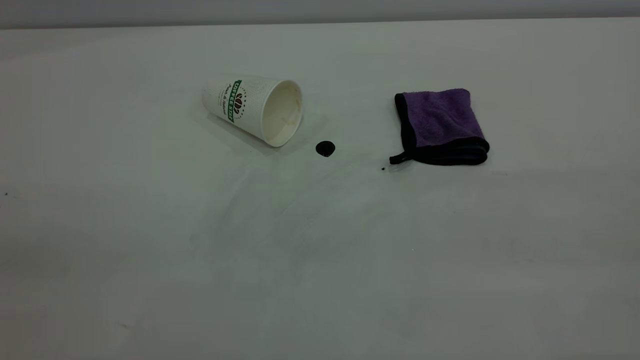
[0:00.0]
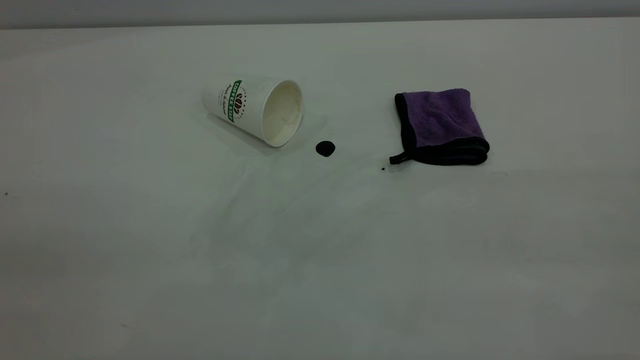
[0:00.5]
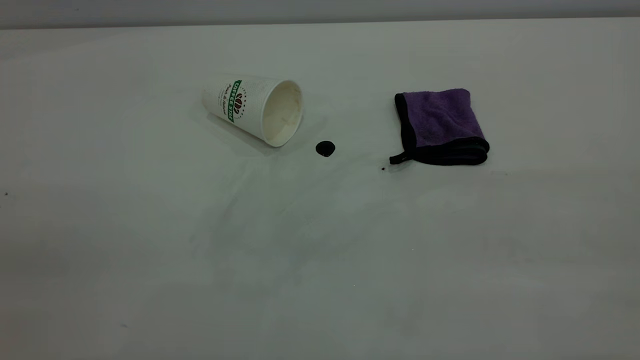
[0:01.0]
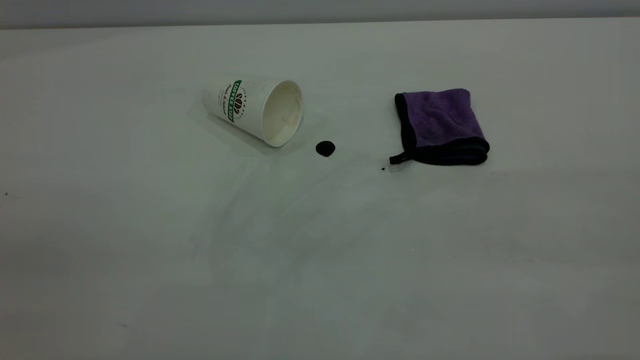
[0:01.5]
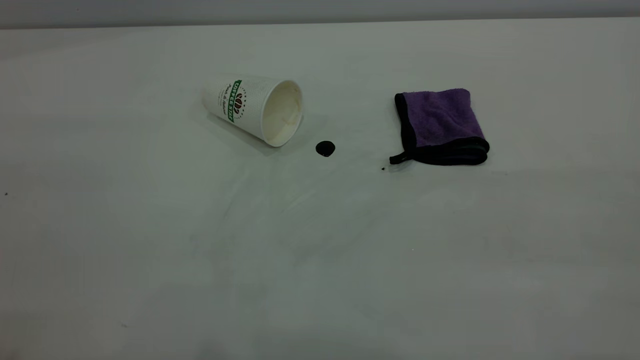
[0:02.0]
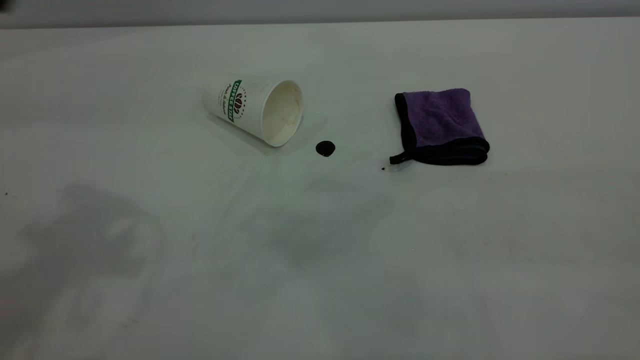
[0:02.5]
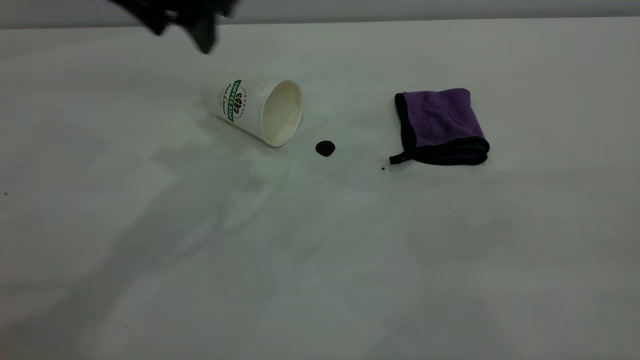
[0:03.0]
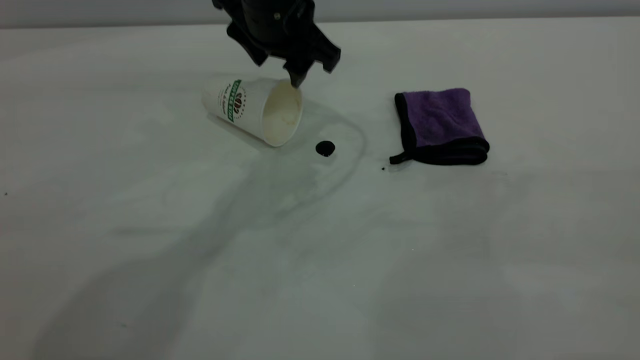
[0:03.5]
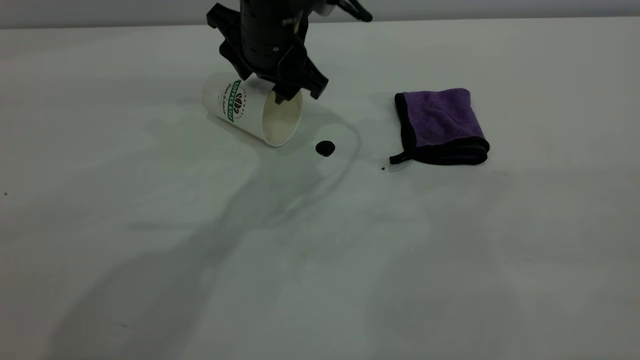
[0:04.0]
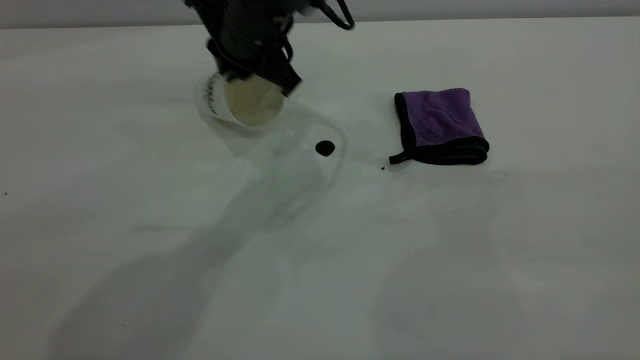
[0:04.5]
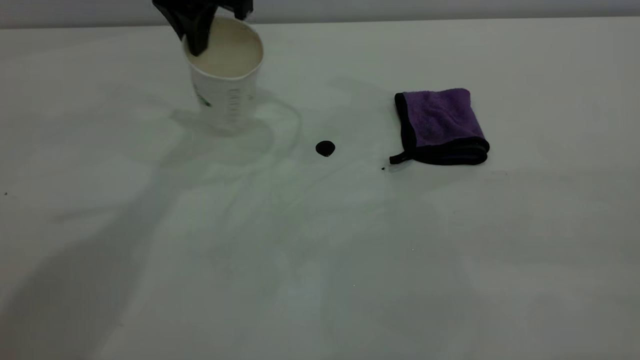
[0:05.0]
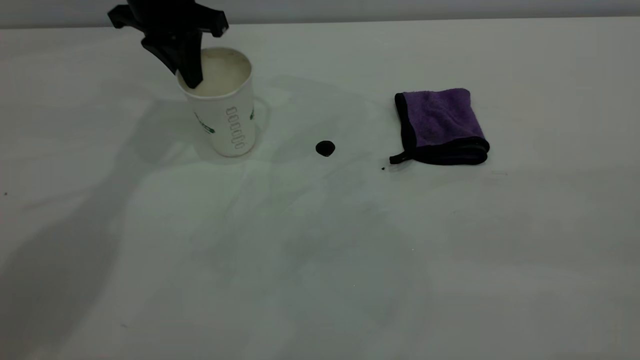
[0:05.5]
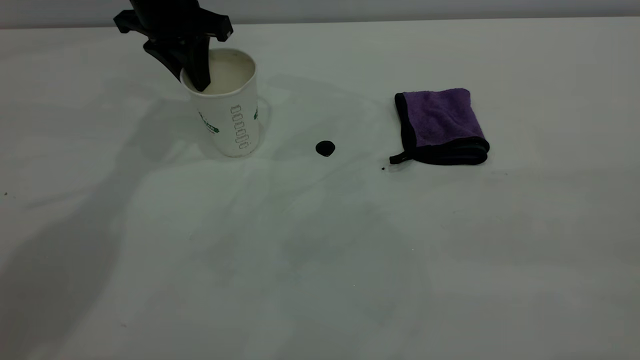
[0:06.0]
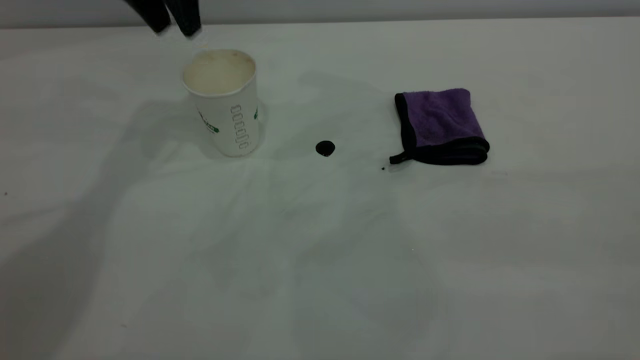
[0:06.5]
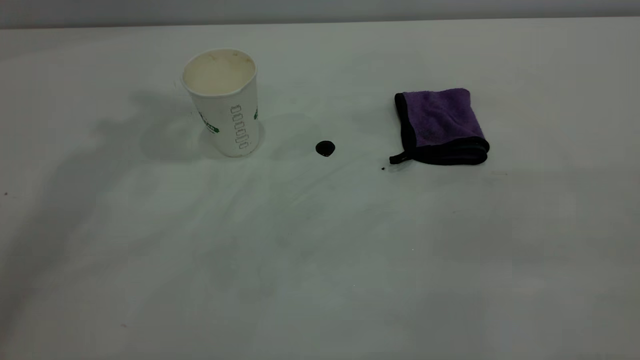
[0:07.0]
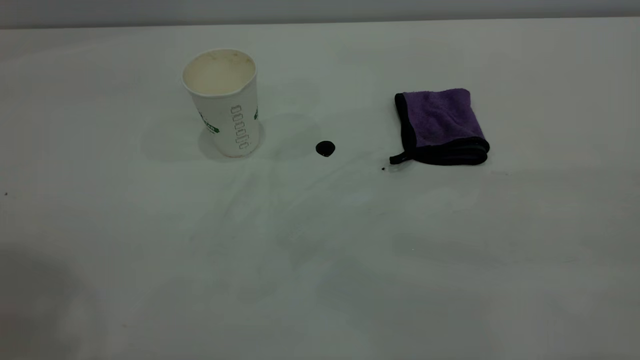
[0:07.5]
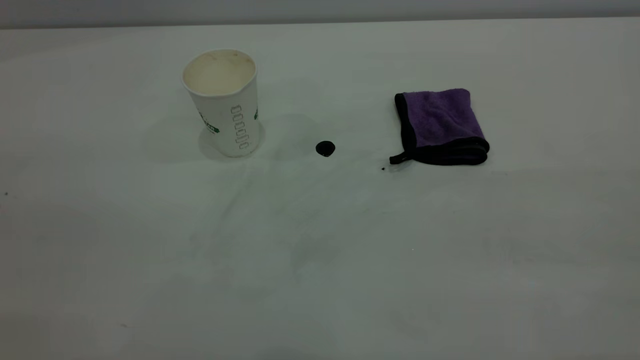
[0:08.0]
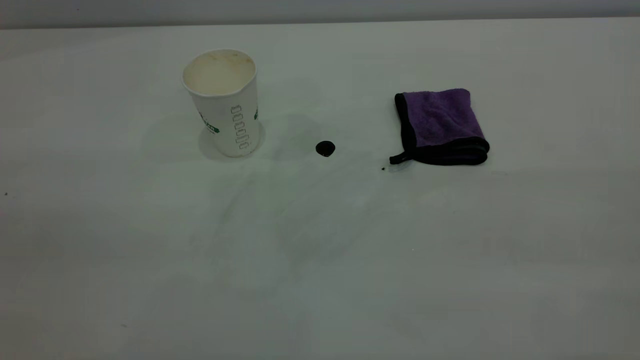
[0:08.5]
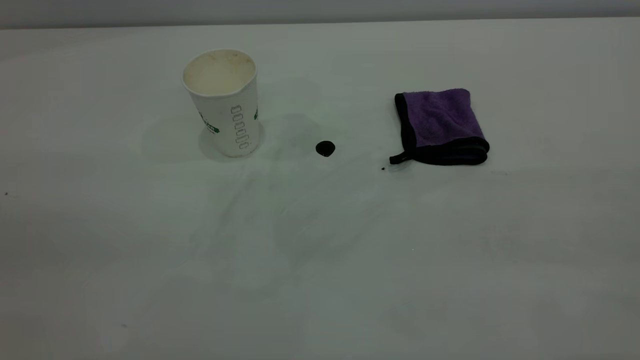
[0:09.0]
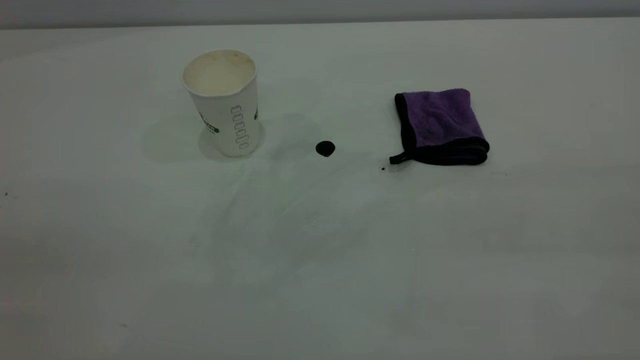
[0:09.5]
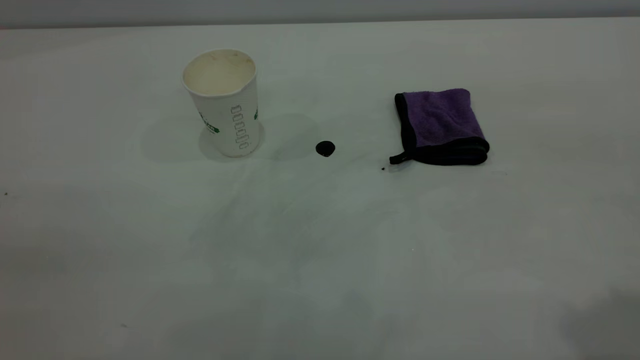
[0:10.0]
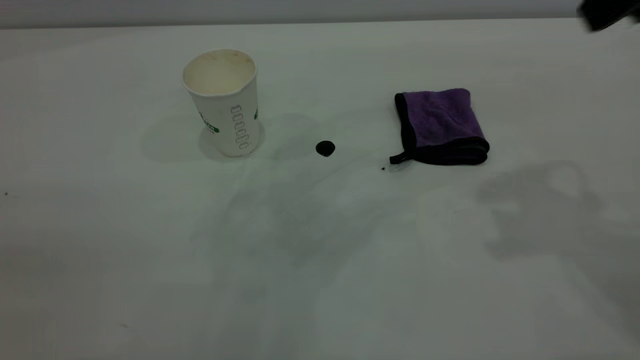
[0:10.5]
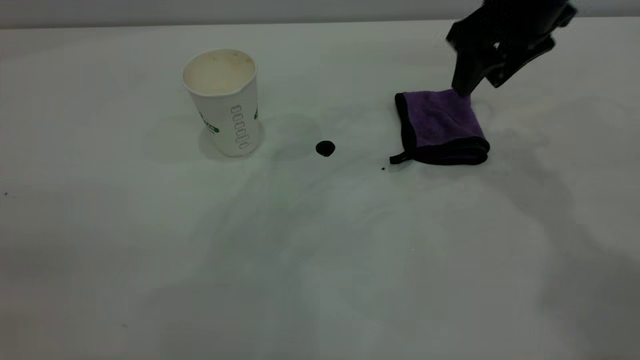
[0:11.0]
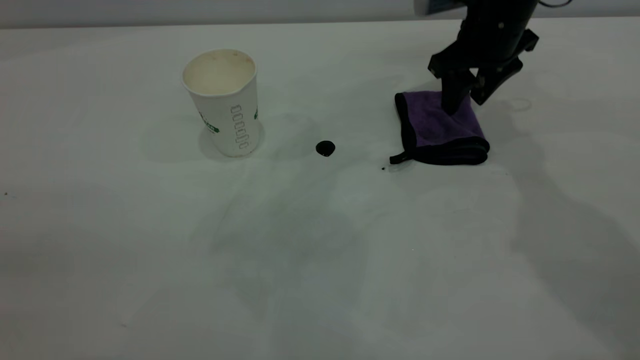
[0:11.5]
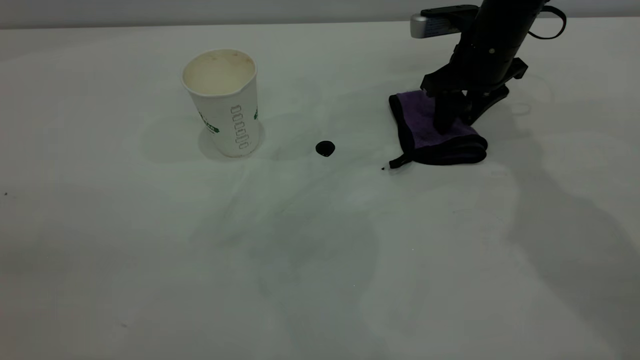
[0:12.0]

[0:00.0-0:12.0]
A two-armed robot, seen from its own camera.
Task of the whole recording: the left gripper pick up the fallen cup and place it upright, the right gripper grasp the purple rag and wipe the coffee stain on the table, the right gripper put the purple rag back in its original position.
Step, 0:00.0 to 0:06.0: Stand the paper cup upright.
0:02.0 to 0:04.0: The left gripper travels forward, to the right and downward by approximately 50 cm.
0:04.0 to 0:06.0: The left gripper is displaced to the left and forward by some 15 cm, and closes up.
0:06.0 to 0:08.0: The left gripper is displaced backward and upward by roughly 40 cm, and opens.
0:10.0 to 0:12.0: The right gripper heads forward and downward, covering about 50 cm.

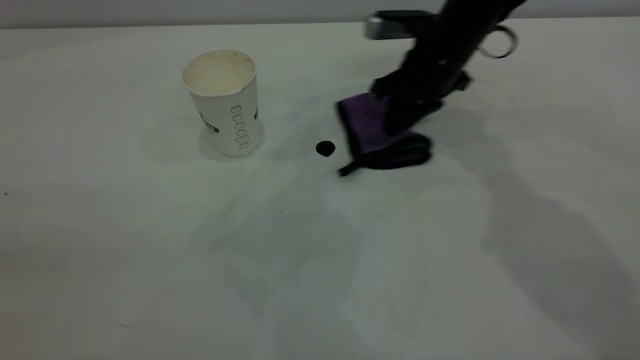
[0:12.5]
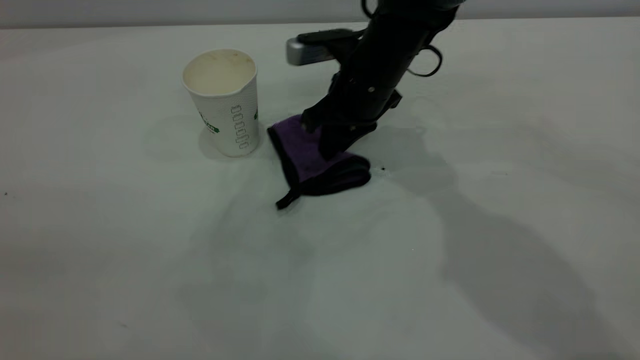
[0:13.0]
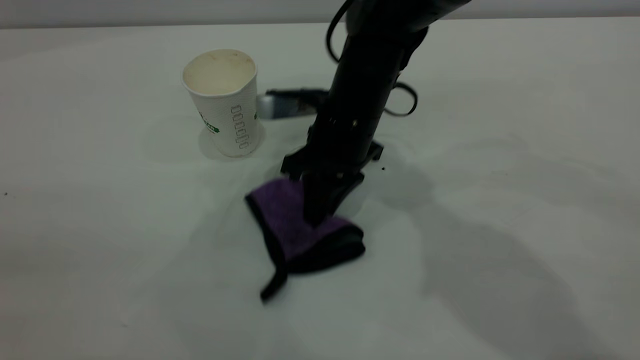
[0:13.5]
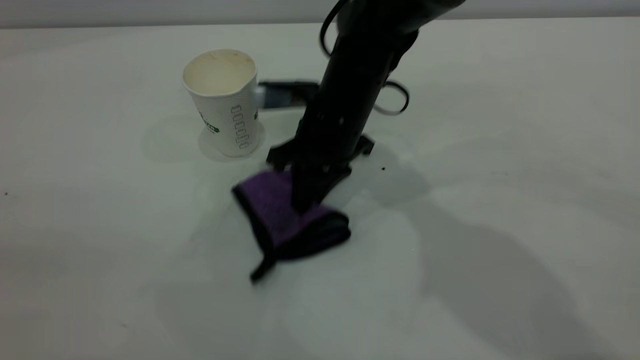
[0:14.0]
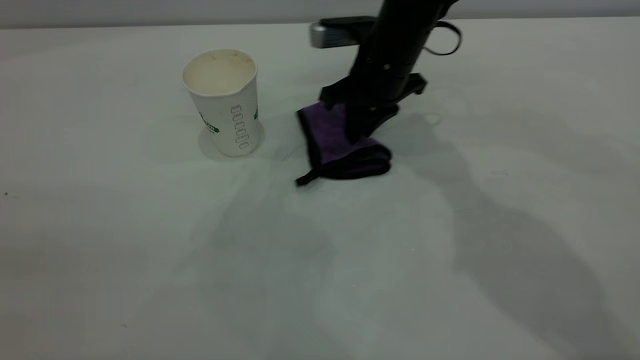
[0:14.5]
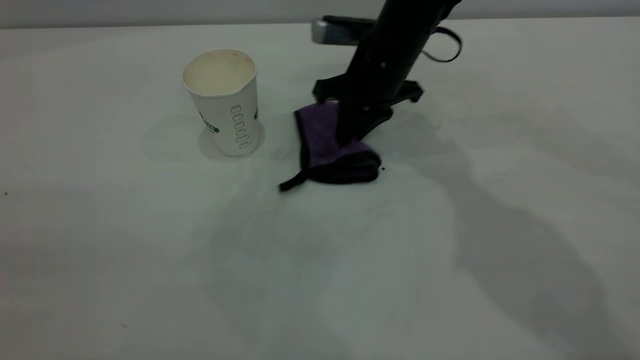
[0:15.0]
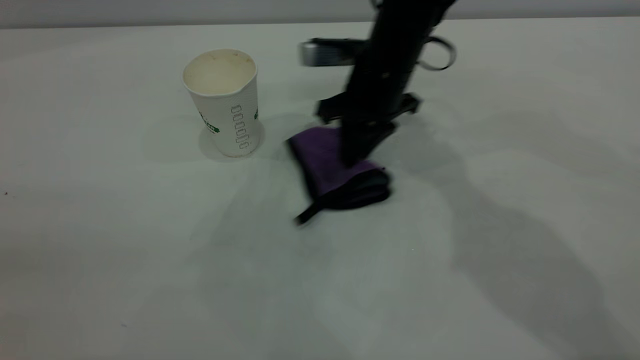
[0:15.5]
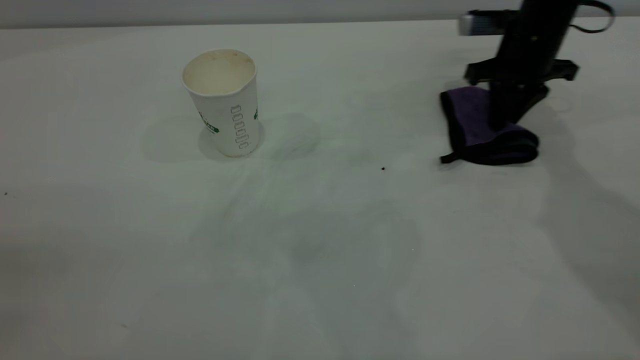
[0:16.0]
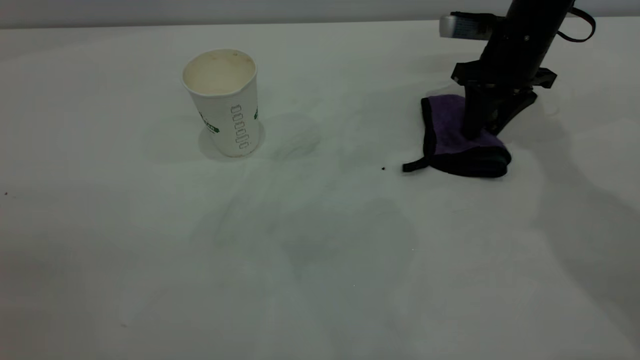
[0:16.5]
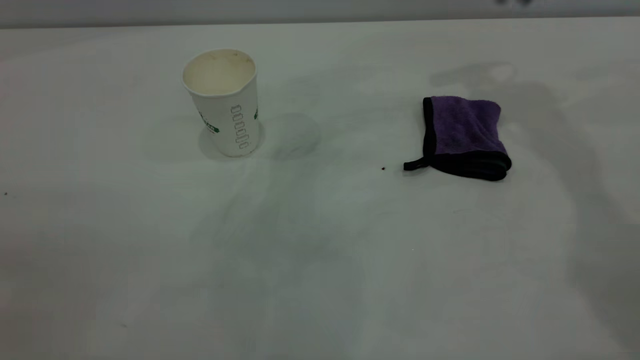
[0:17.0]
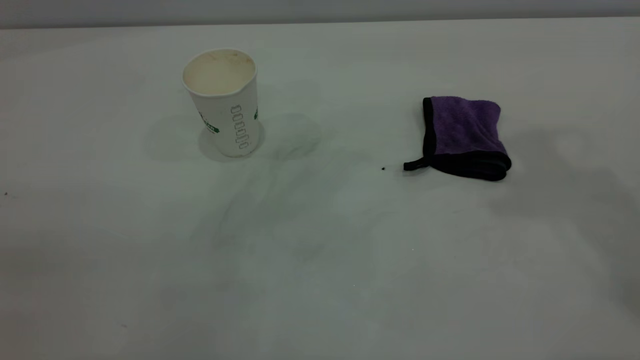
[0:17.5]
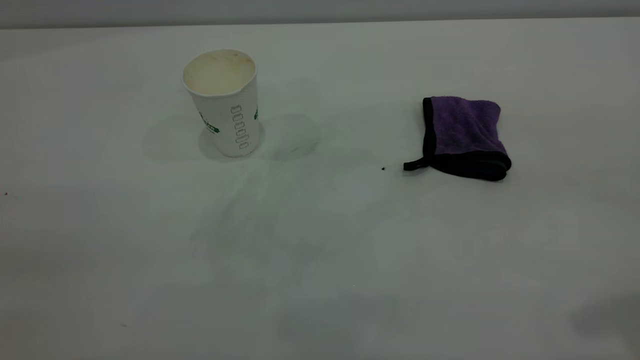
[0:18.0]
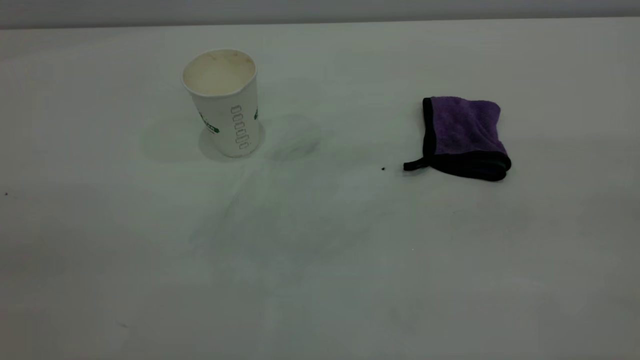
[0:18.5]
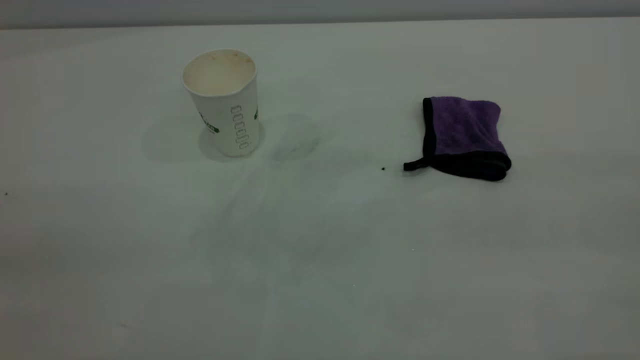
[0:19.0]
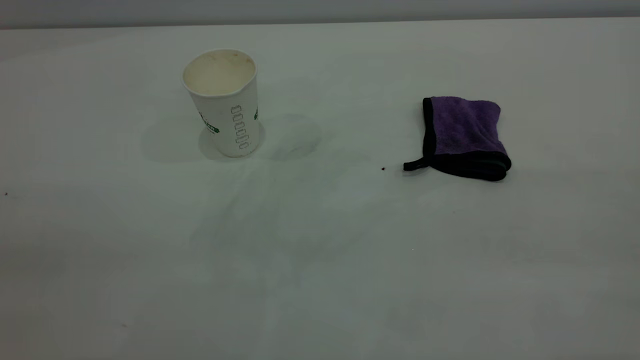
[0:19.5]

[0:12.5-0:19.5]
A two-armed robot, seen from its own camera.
Task of the whole recording: the left gripper pick up the fallen cup and place it upright, the right gripper grasp the purple rag and wipe the coffee stain on the table, the right gripper put the purple rag back in its original position.
Step, 0:12.5 to 0:16.5: Wipe the stains off the table with a rag.
0:14.5 to 0:16.0: The right gripper moves to the right, some 15 cm.
0:16.0 to 0:17.5: The right gripper heads upward and backward, covering some 40 cm, and opens.
